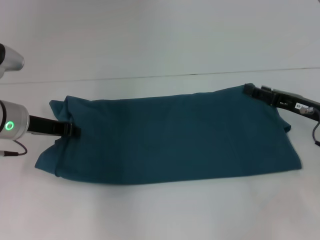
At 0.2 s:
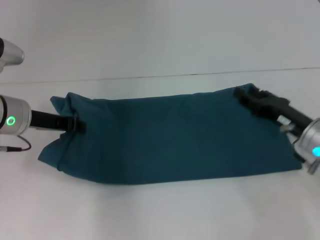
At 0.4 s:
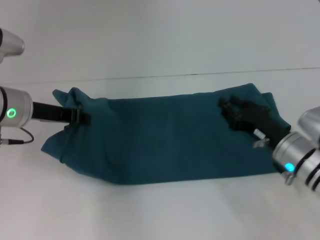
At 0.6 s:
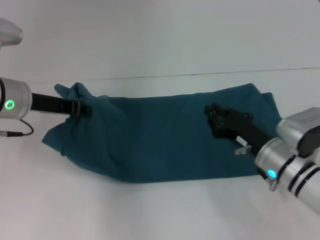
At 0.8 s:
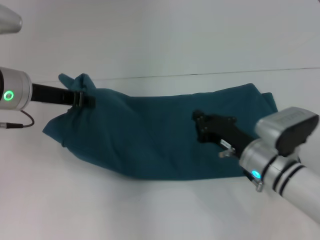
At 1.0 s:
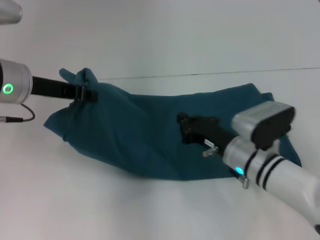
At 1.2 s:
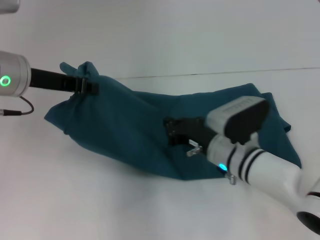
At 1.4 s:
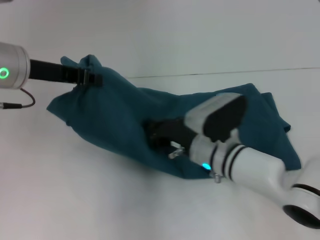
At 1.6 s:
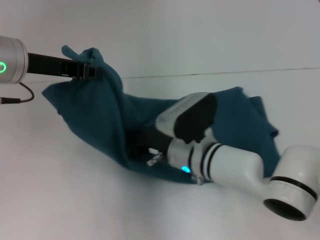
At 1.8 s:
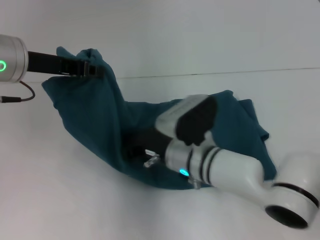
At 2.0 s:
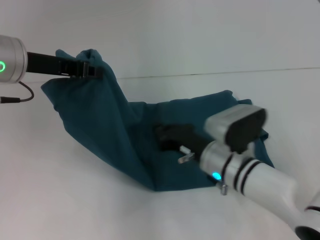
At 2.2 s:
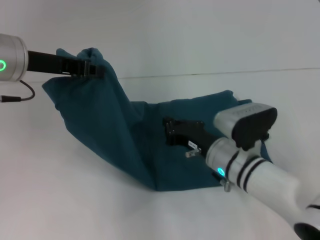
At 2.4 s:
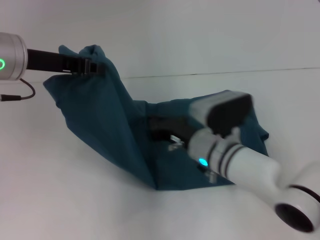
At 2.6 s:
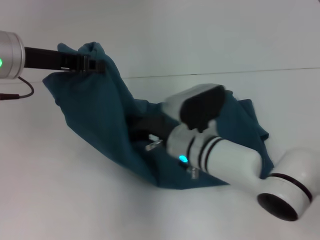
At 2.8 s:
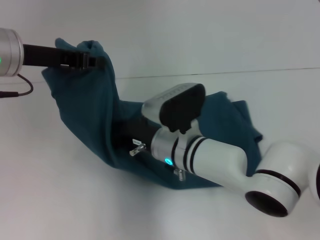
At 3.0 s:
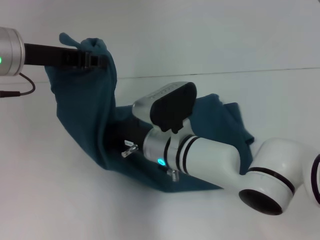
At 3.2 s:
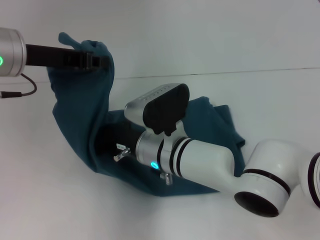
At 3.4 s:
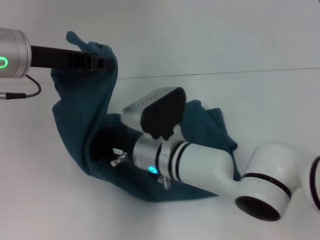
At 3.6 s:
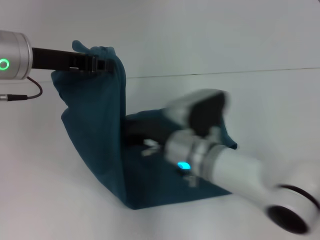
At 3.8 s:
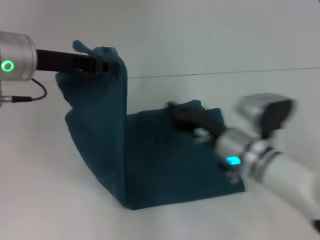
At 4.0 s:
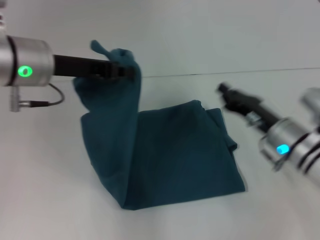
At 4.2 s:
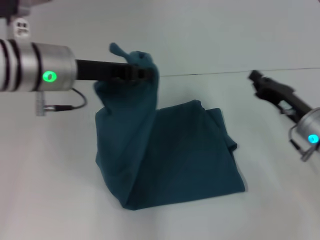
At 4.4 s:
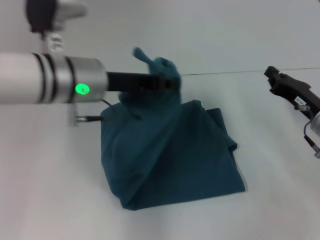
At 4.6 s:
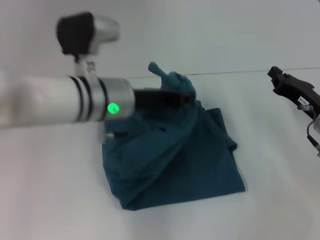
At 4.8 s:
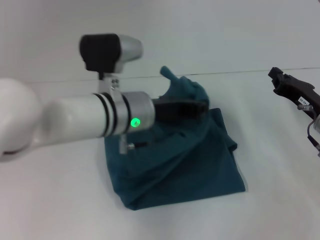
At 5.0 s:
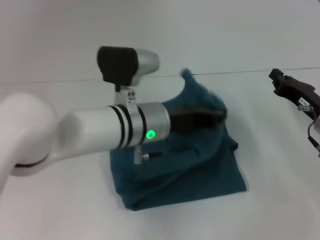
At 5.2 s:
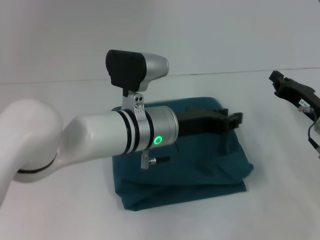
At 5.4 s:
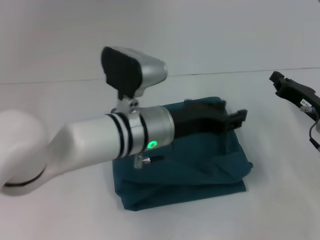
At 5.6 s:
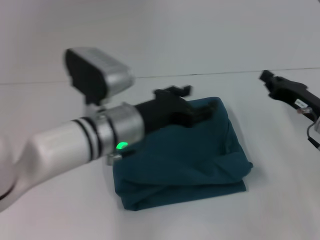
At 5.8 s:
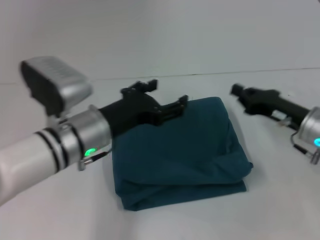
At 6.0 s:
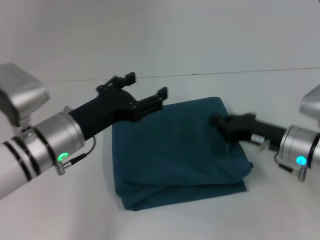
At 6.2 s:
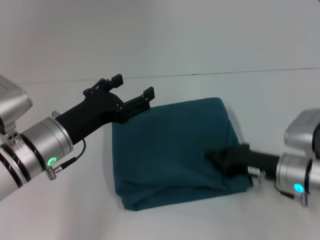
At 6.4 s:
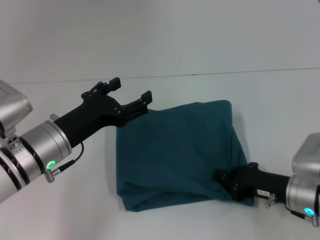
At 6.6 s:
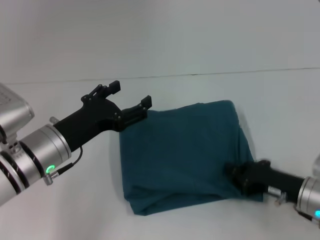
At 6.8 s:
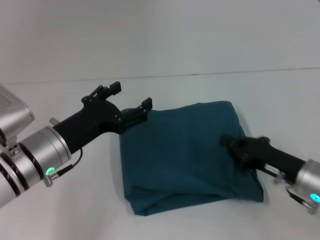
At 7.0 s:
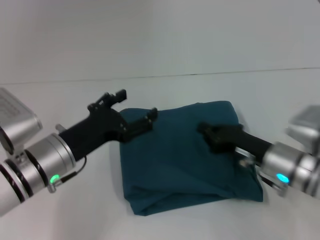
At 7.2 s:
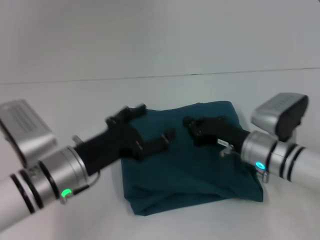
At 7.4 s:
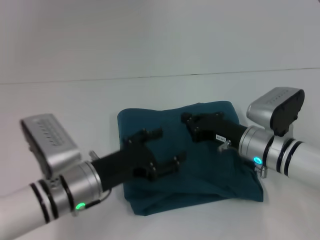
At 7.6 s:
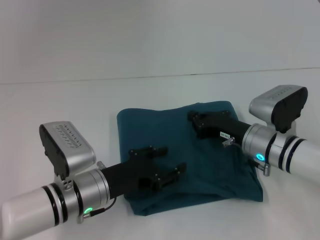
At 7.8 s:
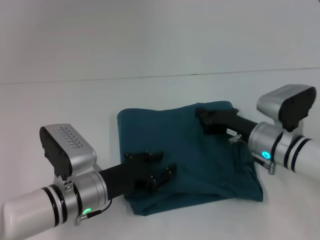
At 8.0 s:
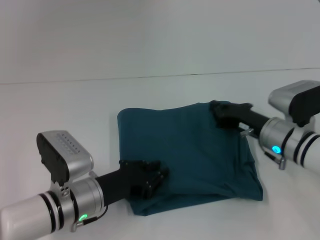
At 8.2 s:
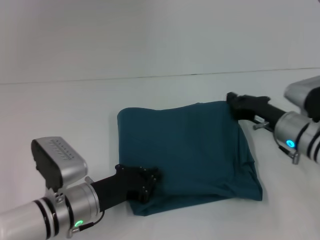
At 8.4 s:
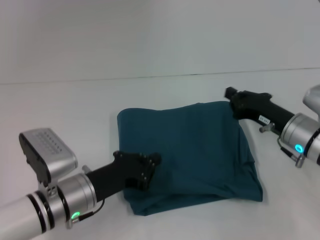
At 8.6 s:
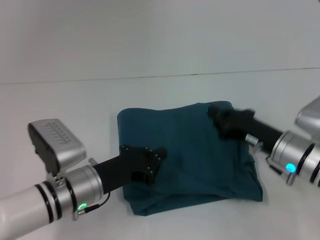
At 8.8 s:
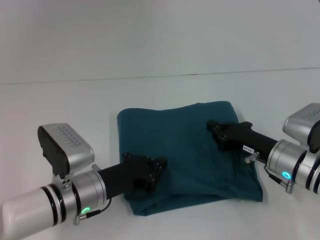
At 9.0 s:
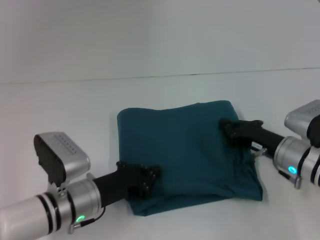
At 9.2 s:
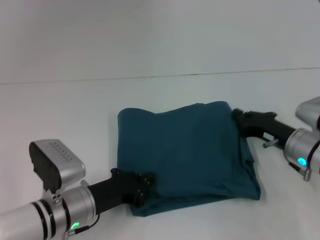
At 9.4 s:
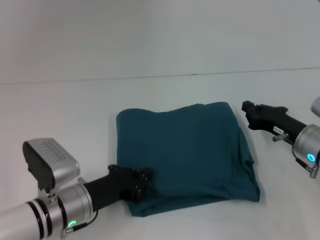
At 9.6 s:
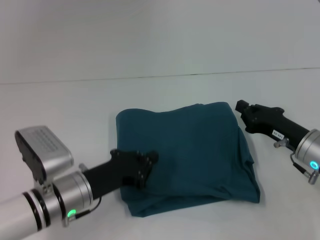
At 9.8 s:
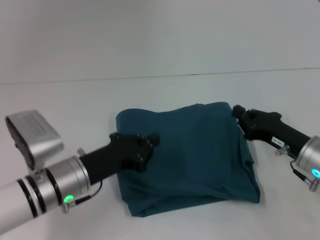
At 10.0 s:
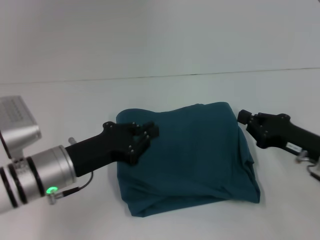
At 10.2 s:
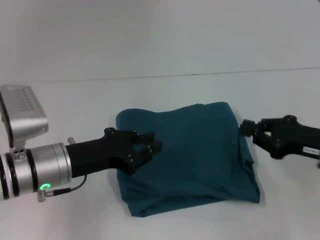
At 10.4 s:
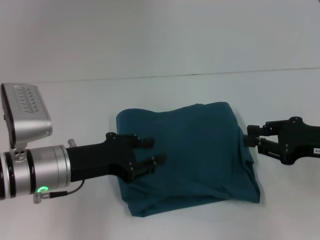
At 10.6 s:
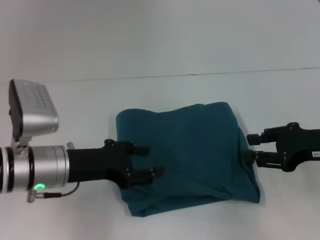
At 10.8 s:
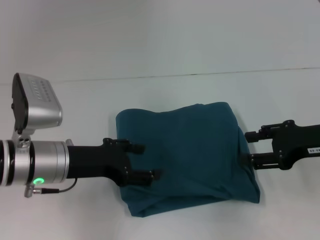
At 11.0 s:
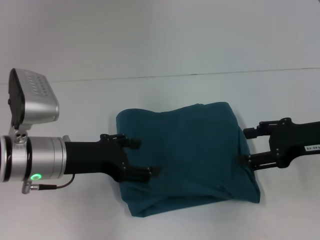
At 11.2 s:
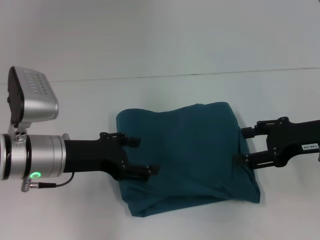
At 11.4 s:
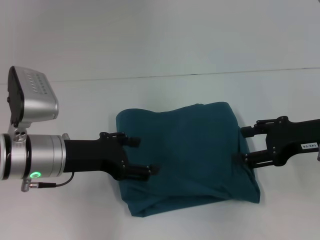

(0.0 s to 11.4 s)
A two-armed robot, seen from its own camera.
Step, 0.0 s - 3.2 s: Press the middle of the clothes with your right hand.
Step, 3.4 s - 5.2 s: Fold the clothes to the left.
0.0 s - 1.4 s: The right gripper travels to the left by roughly 20 cm, and closes its fingers. Meanwhile the left gripper goes some 10 cm upward.
1.4 s - 2.8 s: The right gripper swings left and right, about 10 cm each way, with 2 reversals.
2.8 s - 4.2 s: The right gripper is displaced to the right by about 20 cm. The left gripper shifts approximately 5 cm to the right.
4.2 s - 5.6 s: The left gripper travels downward and to the right by some 10 cm, and opens.
5.6 s - 7.2 s: Both grippers move to the left, approximately 10 cm. The left gripper opens its fingers.
7.2 s - 8.6 s: The left gripper closes.
8.6 s - 10.0 s: The right gripper travels to the right by some 5 cm.
10.0 s - 11.4 s: The left gripper shifts by about 5 cm, and opens its fingers, while the right gripper shifts some 10 cm upward, and opens.

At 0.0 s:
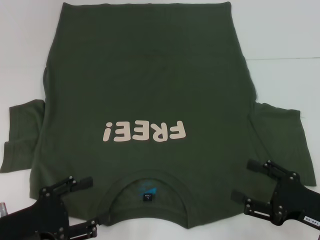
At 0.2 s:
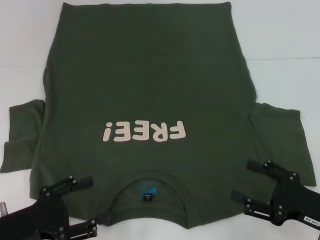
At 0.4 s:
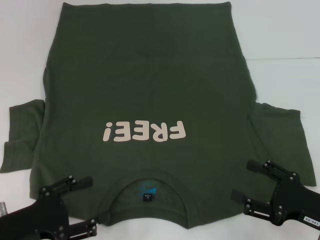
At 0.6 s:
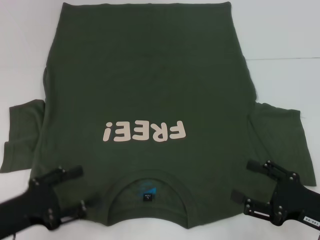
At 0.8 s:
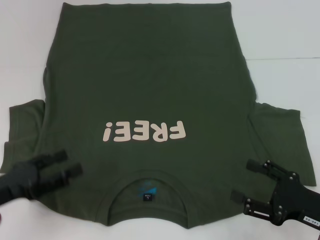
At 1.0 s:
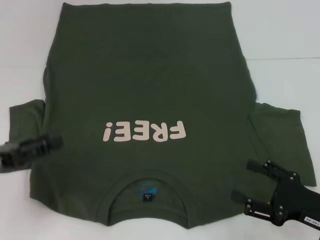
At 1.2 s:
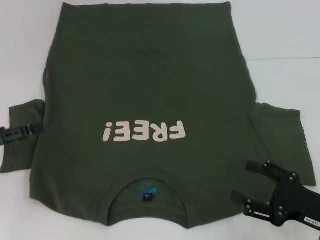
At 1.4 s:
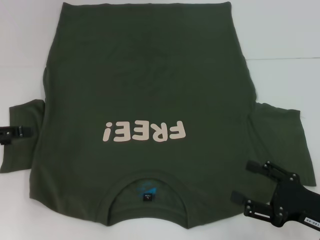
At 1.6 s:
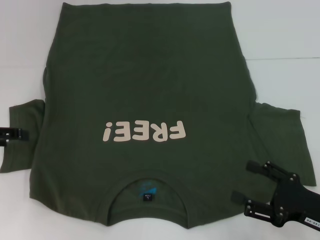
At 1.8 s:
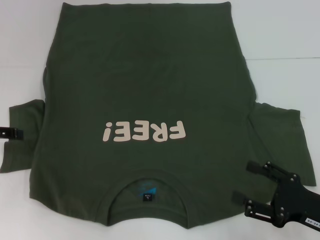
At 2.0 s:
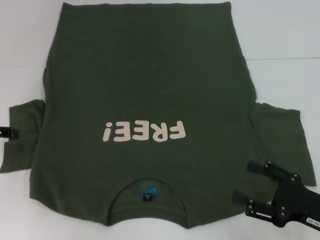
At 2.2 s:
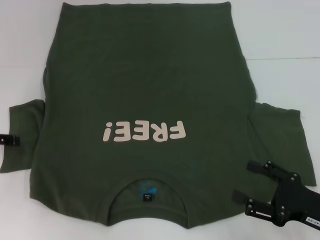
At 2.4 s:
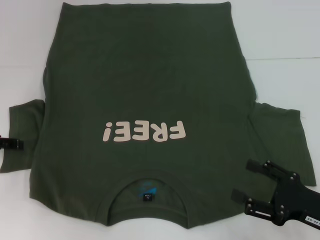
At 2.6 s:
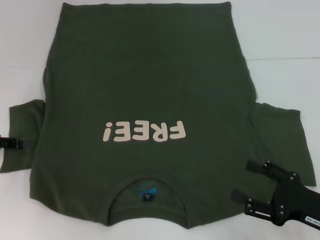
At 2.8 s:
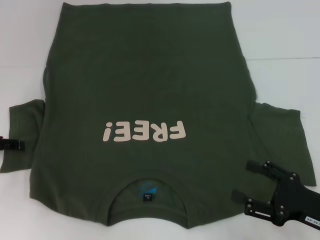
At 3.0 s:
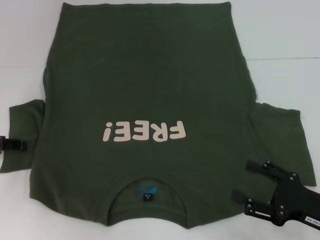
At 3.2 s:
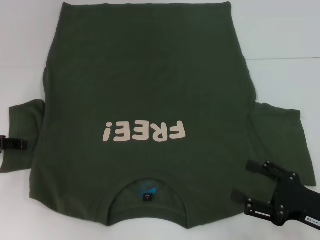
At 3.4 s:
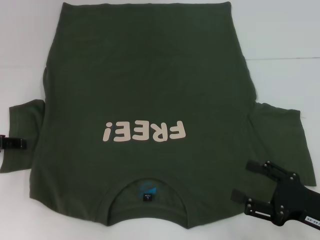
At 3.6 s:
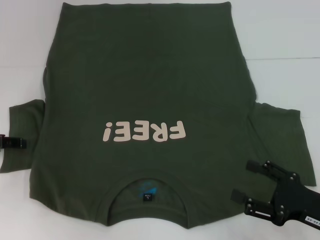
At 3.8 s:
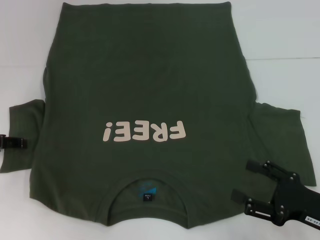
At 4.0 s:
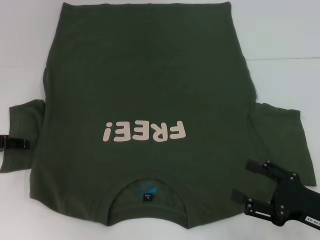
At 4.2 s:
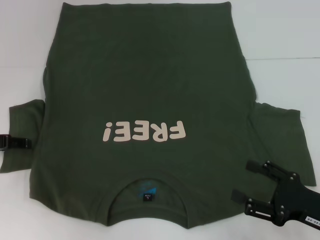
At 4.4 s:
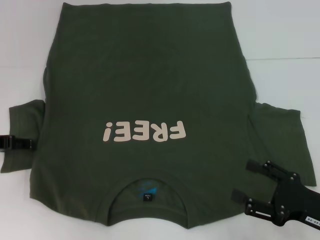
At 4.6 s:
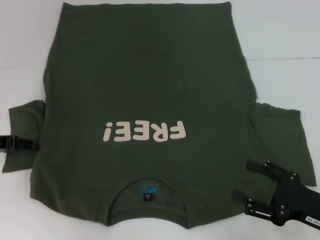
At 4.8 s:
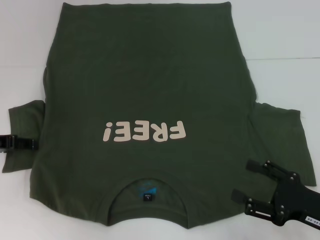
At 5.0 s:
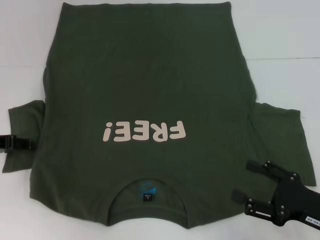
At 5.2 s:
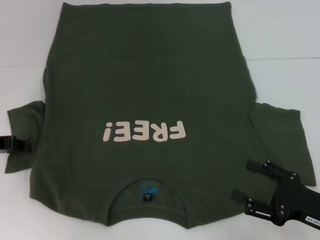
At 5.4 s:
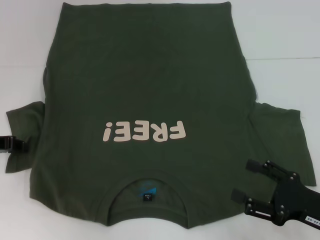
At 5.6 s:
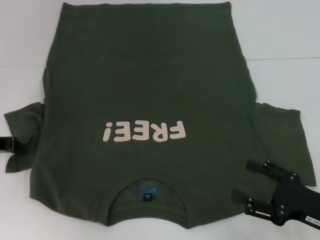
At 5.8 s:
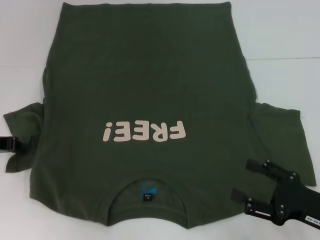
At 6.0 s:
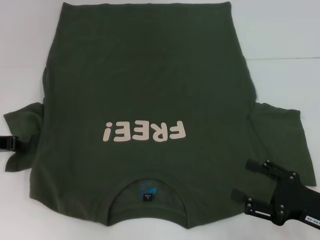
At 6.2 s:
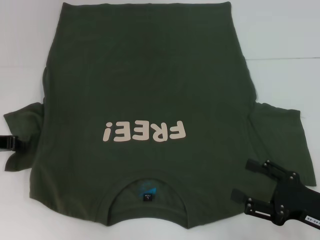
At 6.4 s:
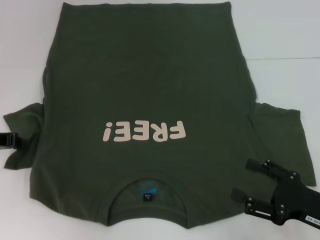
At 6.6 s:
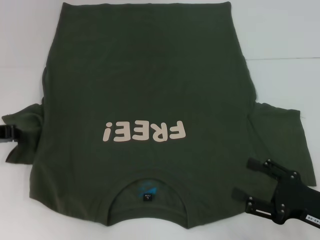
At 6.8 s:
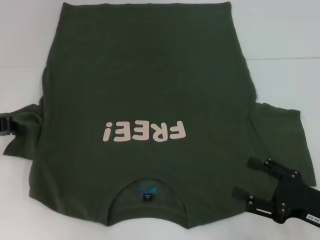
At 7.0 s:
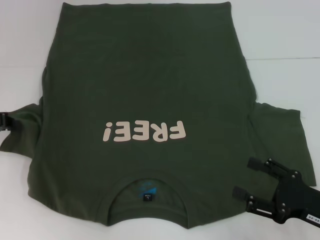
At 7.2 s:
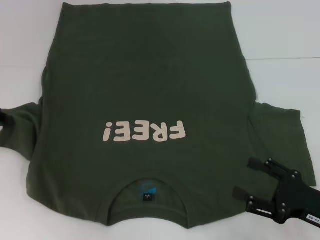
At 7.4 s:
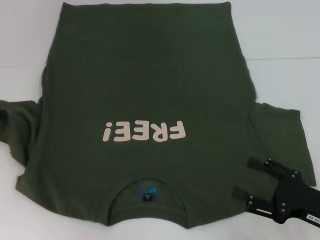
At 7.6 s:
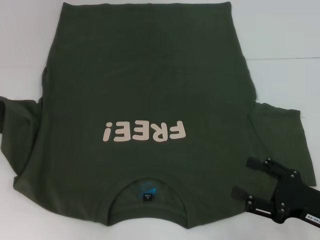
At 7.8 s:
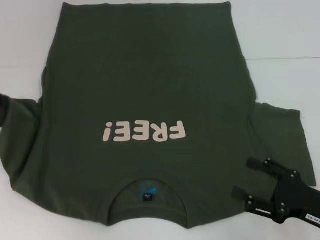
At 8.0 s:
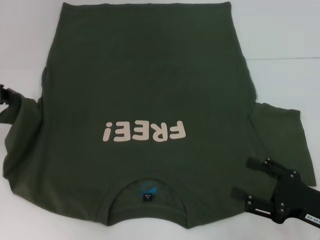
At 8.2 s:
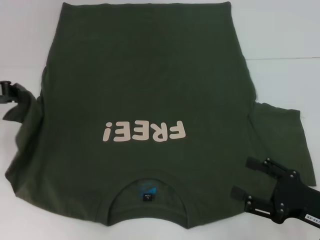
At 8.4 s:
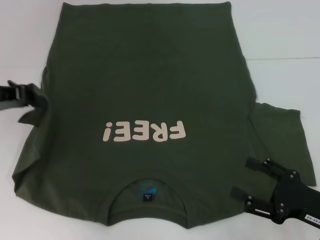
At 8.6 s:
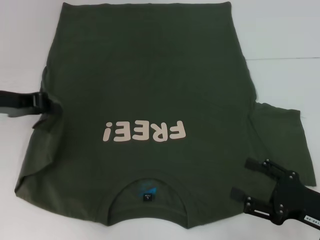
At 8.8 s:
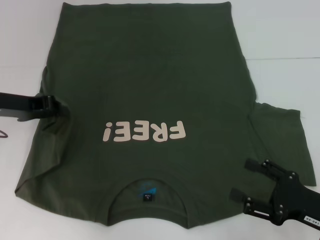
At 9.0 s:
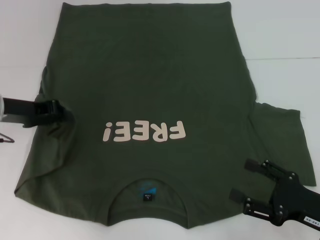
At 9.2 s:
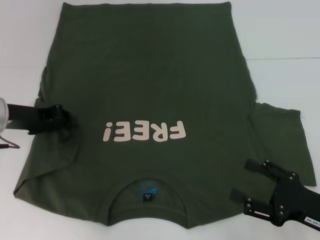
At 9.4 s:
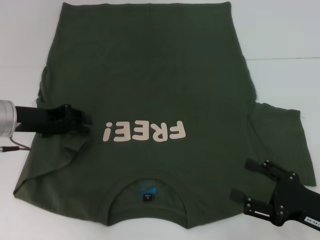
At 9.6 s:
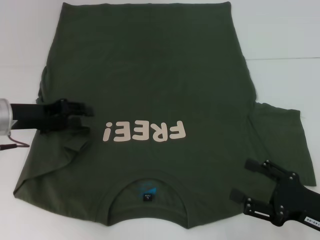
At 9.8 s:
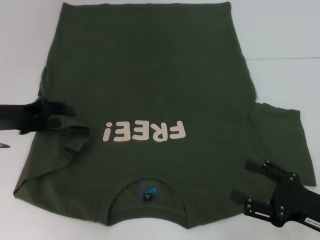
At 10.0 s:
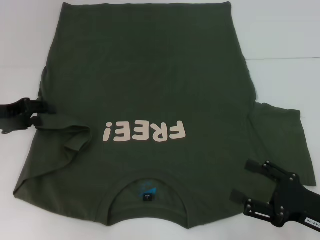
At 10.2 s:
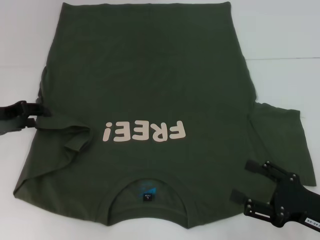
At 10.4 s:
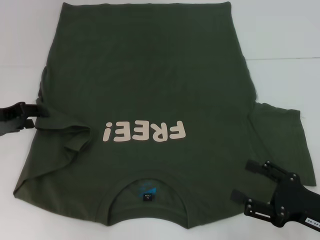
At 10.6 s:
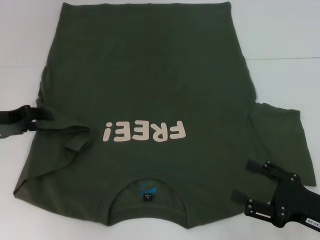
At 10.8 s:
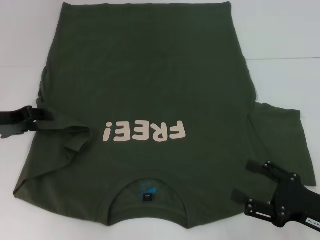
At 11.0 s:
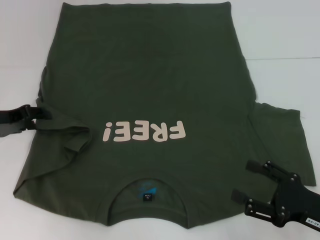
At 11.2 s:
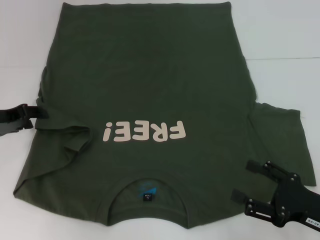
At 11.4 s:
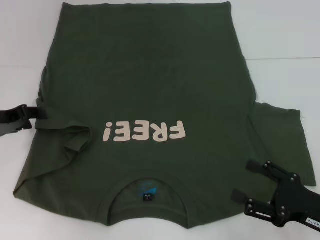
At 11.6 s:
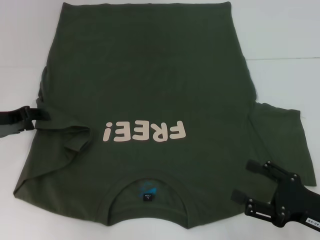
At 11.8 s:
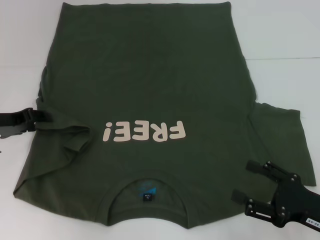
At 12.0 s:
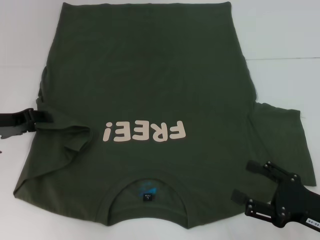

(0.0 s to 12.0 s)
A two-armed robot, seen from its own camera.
0.0 s - 1.6 s: The left gripper heads forward, to the left and upward, covering approximately 20 cm.
1.6 s - 3.0 s: The grippers stay close to where they were, moving slightly.
3.0 s - 4.4 s: The two grippers keep their place.
4.4 s - 6.0 s: The left gripper closes its fingers.
6.0 s - 7.6 s: The left gripper goes roughly 5 cm upward.
7.6 s - 9.0 s: The left gripper goes about 10 cm to the right.
9.0 s - 10.4 s: The left gripper moves roughly 5 cm, and opens.
10.4 s - 12.0 s: The grippers make only small movements.
